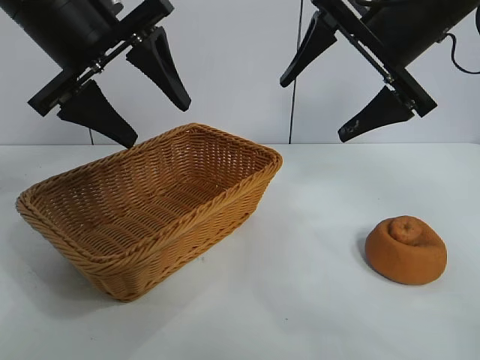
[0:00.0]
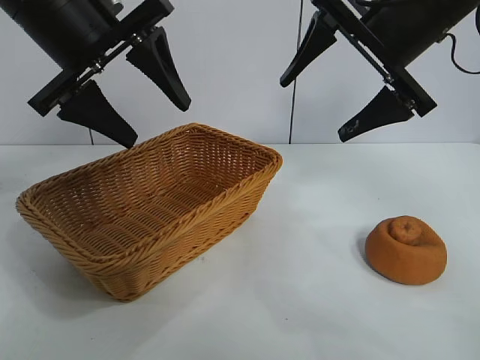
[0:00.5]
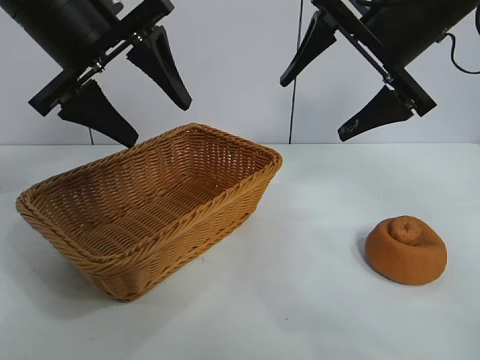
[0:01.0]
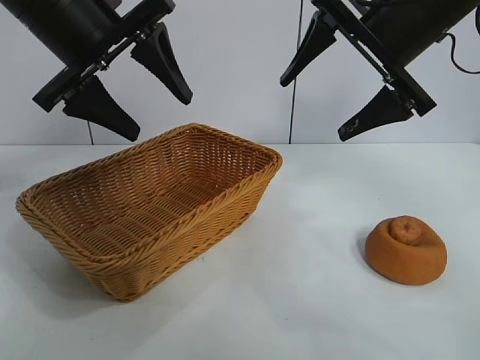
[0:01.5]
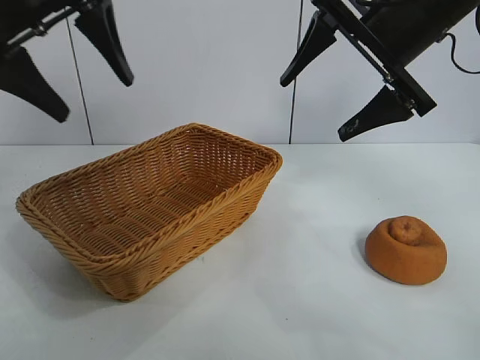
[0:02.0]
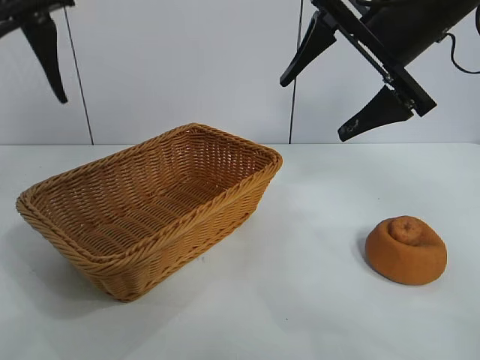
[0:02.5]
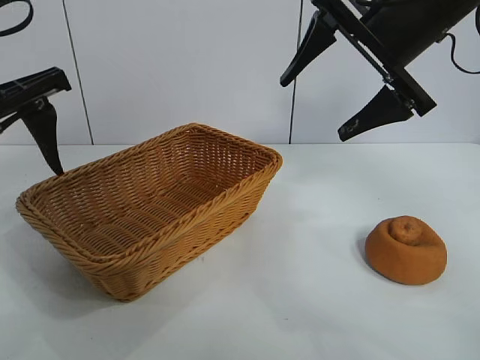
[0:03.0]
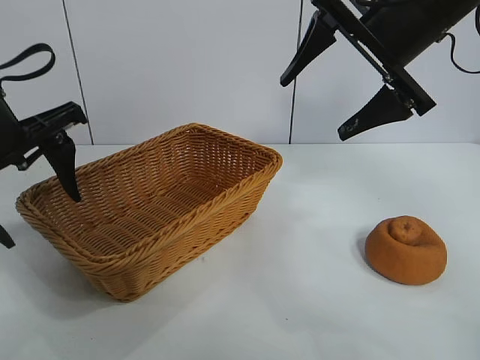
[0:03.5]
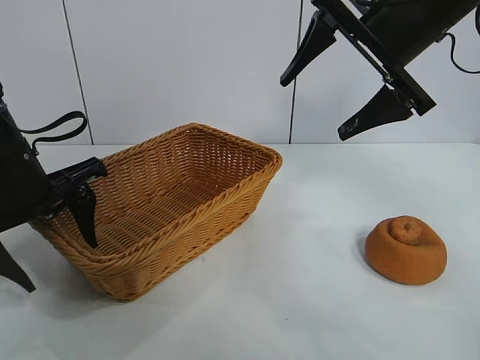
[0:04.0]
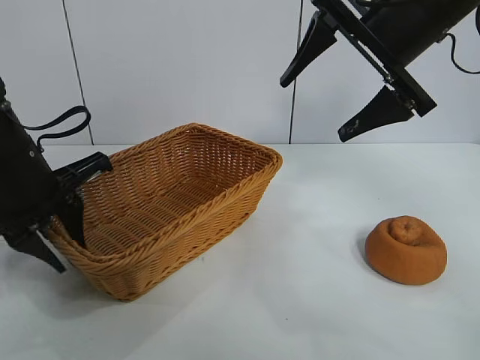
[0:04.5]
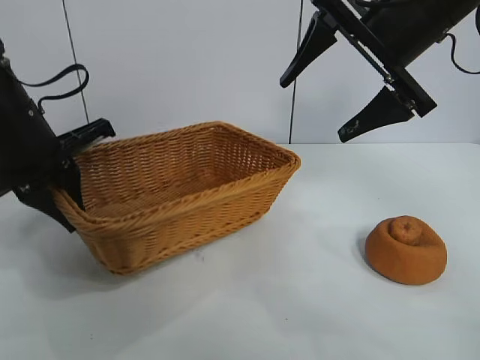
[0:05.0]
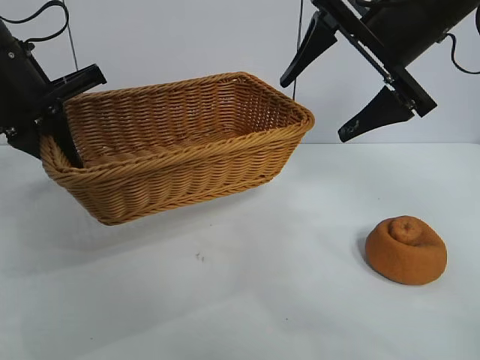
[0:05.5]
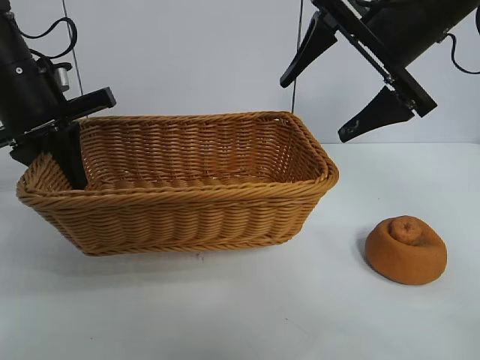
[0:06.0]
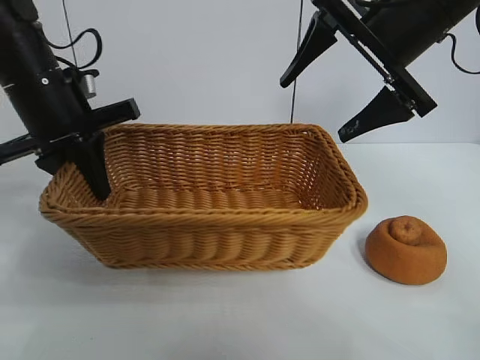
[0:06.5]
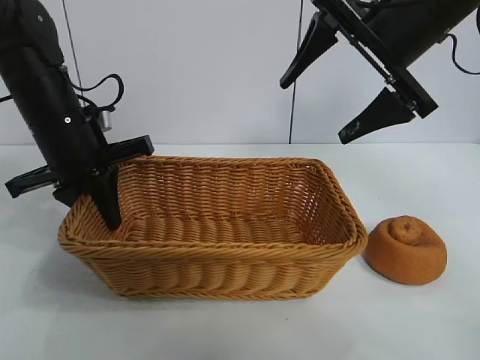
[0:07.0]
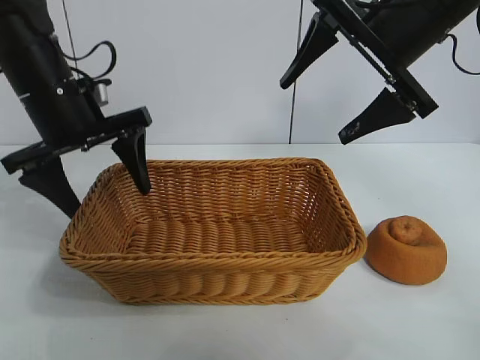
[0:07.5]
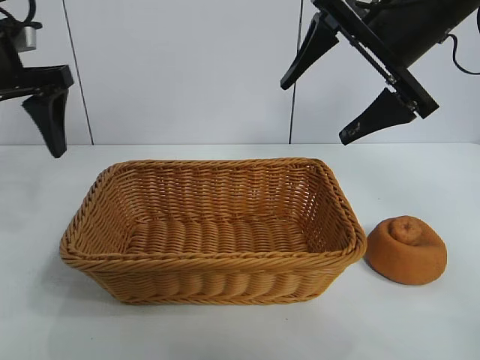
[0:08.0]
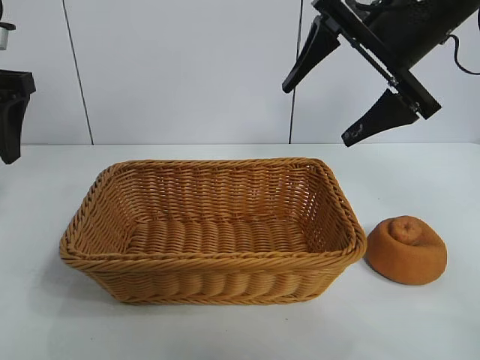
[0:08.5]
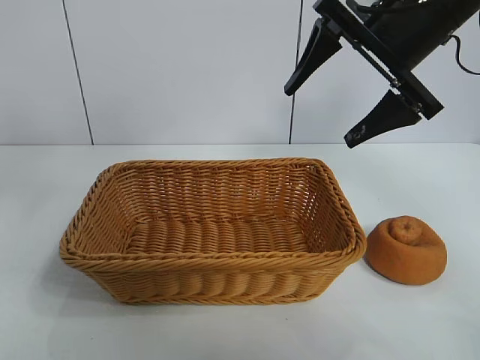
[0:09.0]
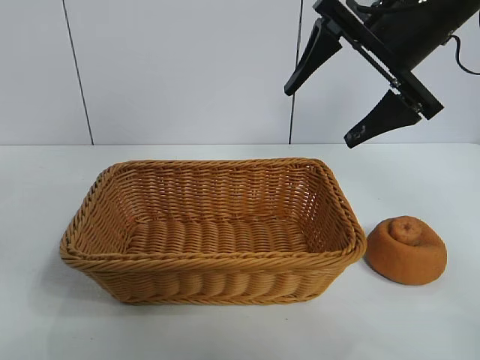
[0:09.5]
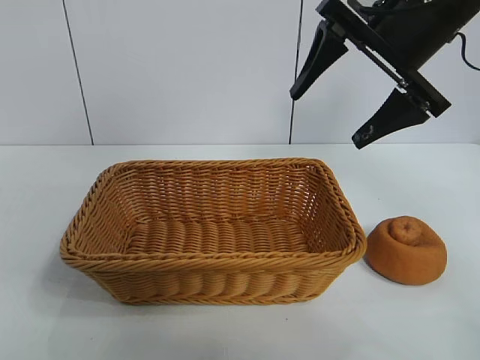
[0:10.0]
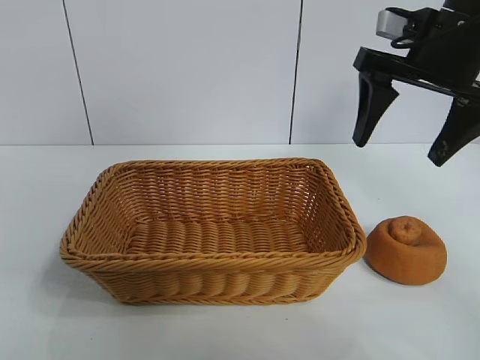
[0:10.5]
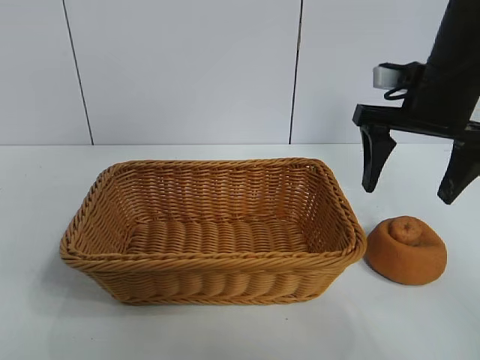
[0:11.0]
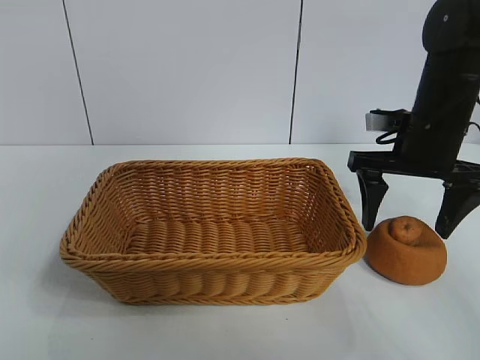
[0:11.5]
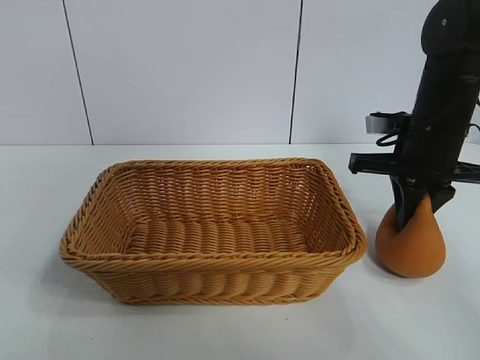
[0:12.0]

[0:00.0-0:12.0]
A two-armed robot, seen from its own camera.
Task of the whole recording: pick up the orange and put it into the basket.
Step, 0:02.0 to 0:04.5: Grasp the basket with left gripper.
Step, 0:05.0 to 0:07.0: Place the basket in the center of view with left gripper.

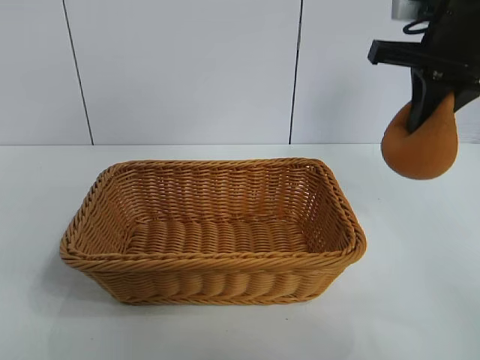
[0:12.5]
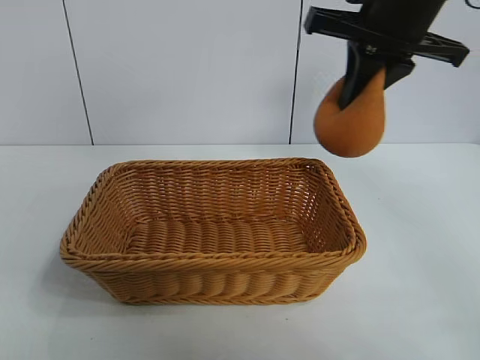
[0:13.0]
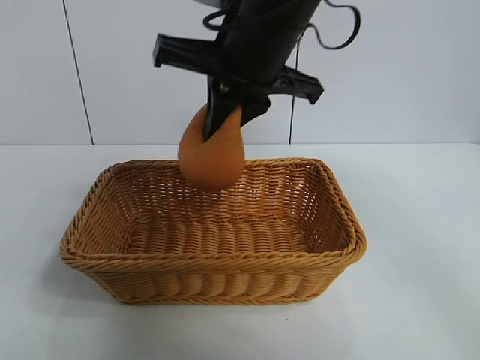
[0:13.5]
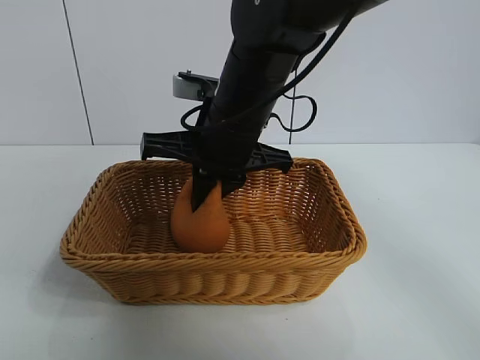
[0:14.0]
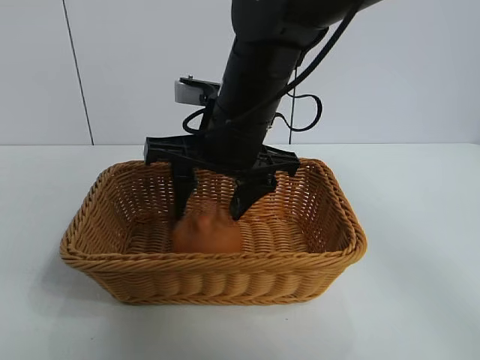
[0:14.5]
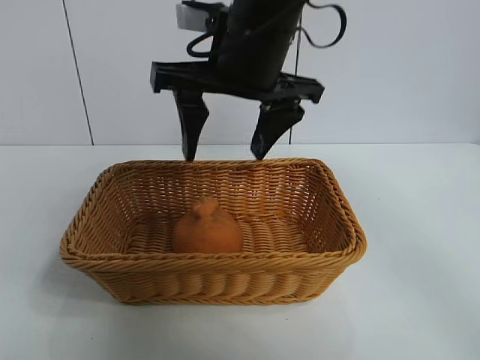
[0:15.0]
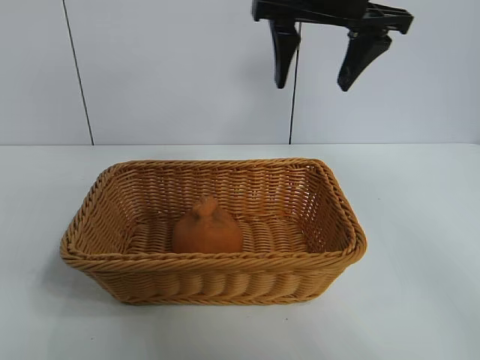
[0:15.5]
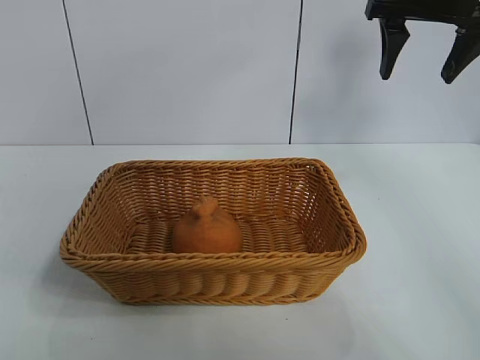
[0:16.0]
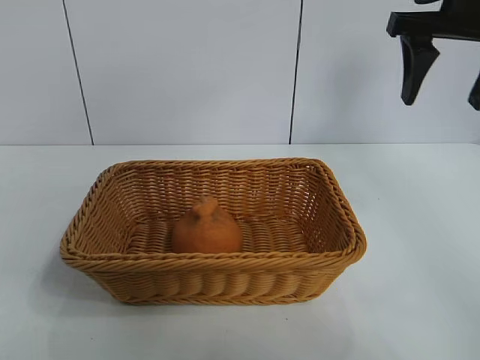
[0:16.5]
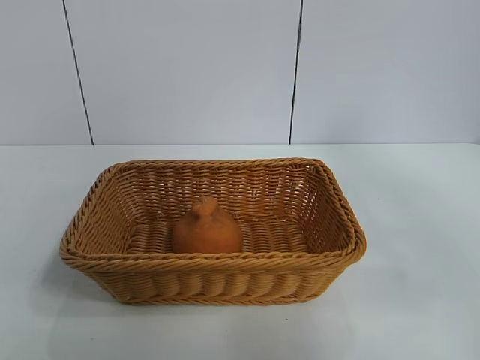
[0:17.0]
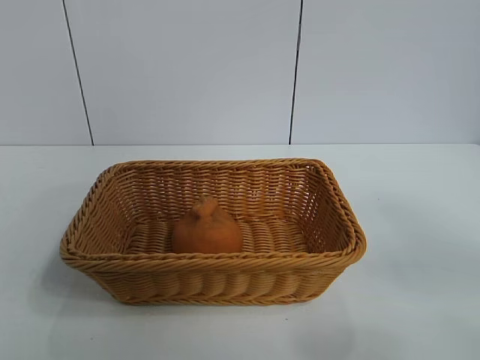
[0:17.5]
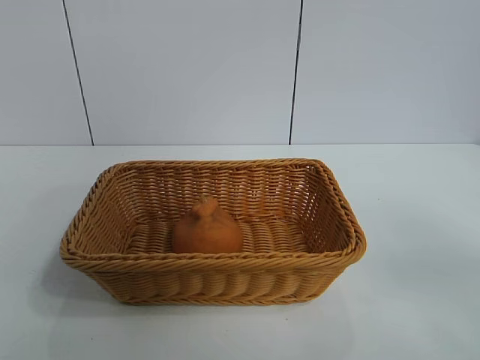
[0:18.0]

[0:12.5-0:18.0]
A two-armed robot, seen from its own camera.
Task of the whole recording: pick up the orange and put it into the basket.
Step, 0:12.5 to 0:14.5: Place the orange in the basket with right gripper.

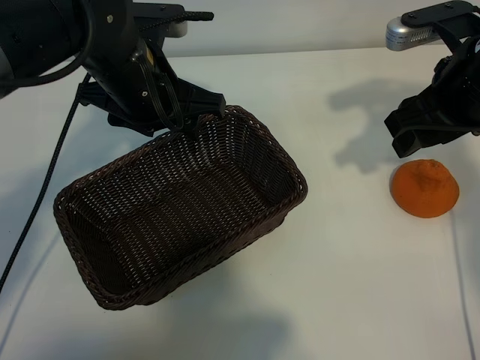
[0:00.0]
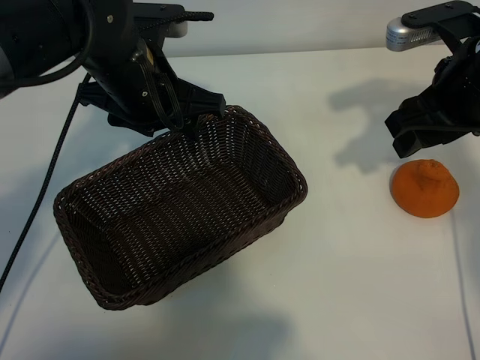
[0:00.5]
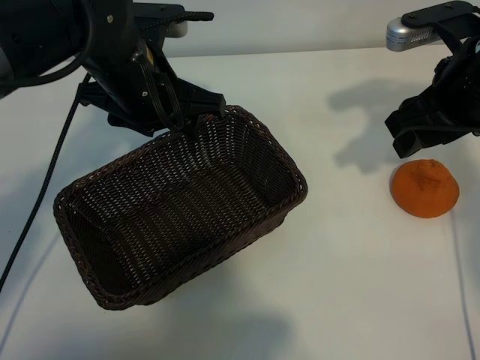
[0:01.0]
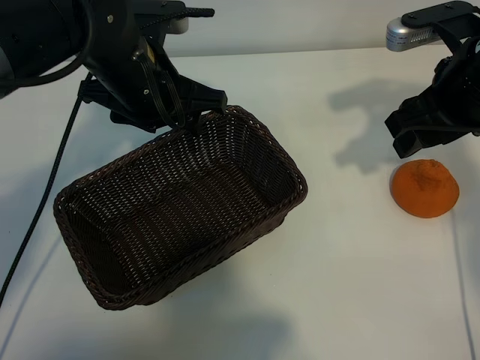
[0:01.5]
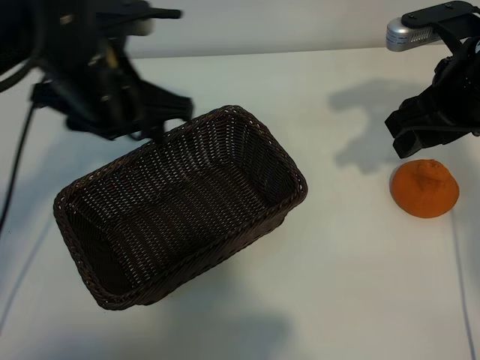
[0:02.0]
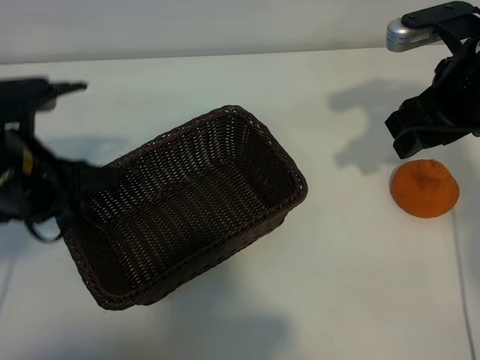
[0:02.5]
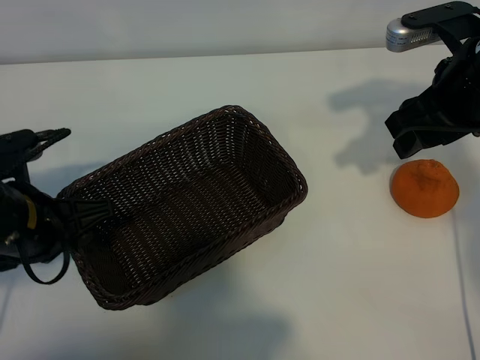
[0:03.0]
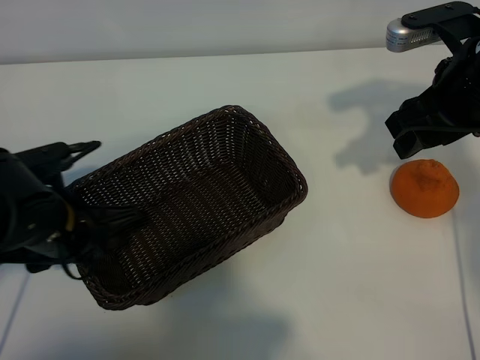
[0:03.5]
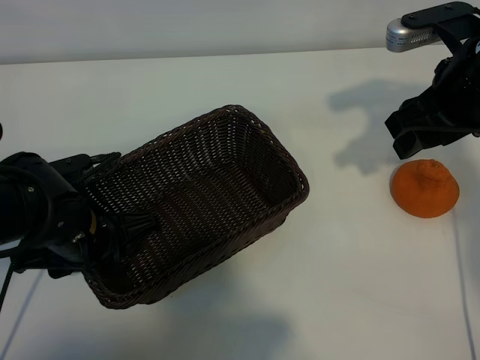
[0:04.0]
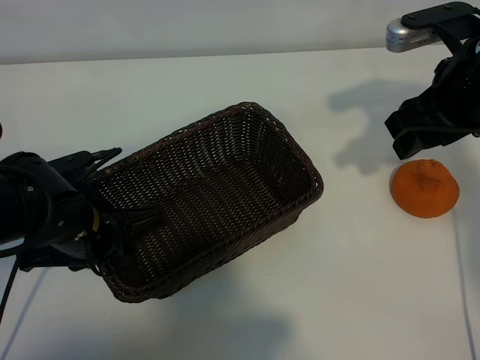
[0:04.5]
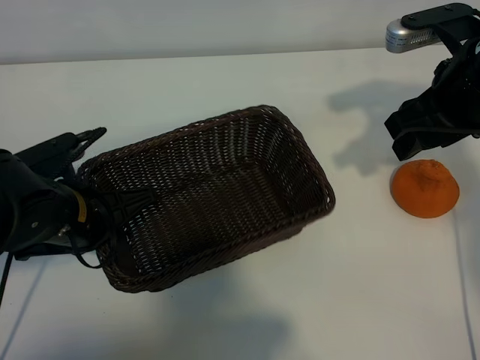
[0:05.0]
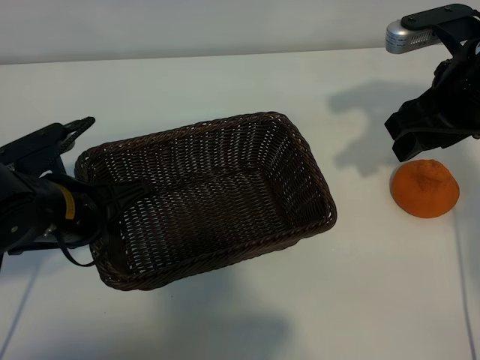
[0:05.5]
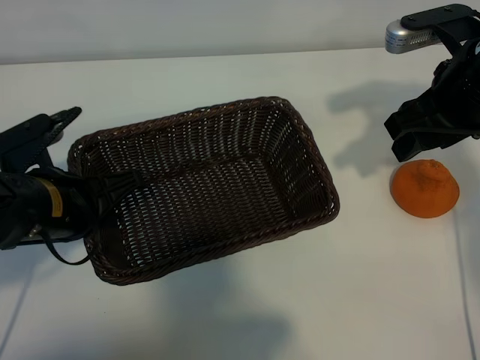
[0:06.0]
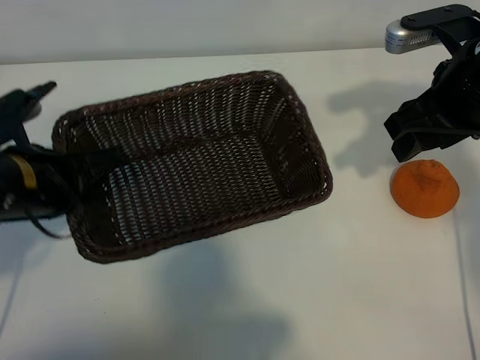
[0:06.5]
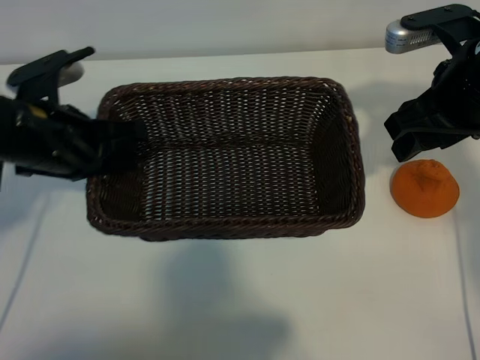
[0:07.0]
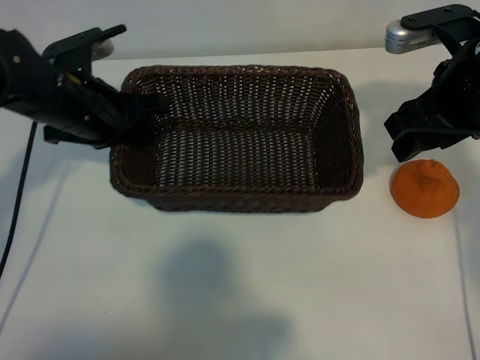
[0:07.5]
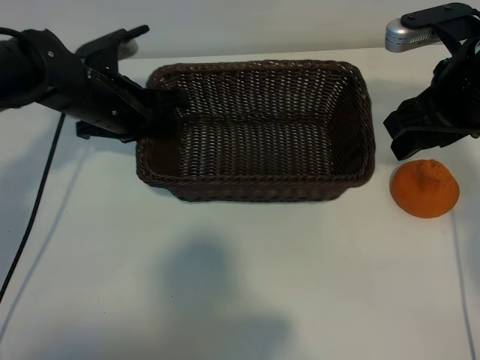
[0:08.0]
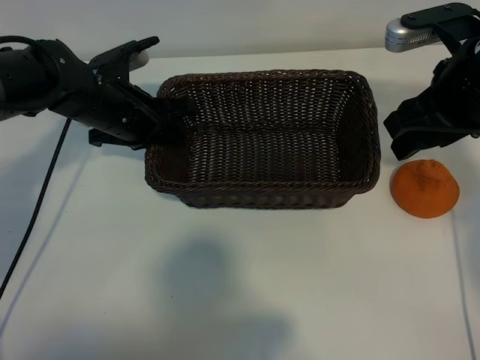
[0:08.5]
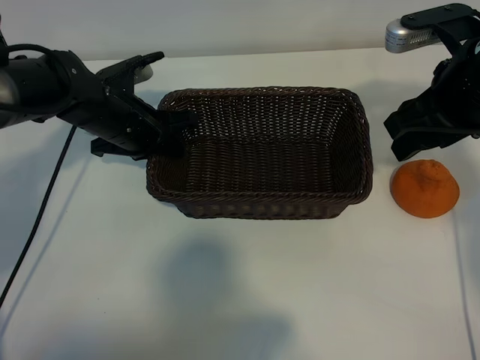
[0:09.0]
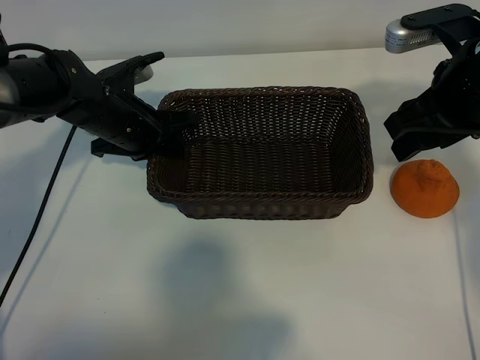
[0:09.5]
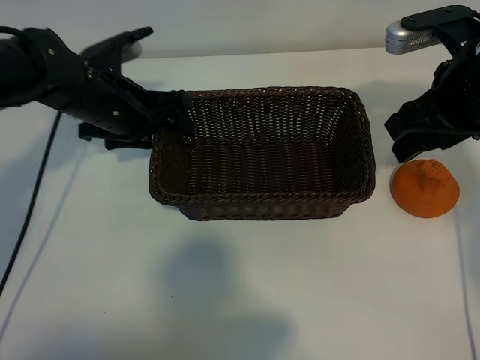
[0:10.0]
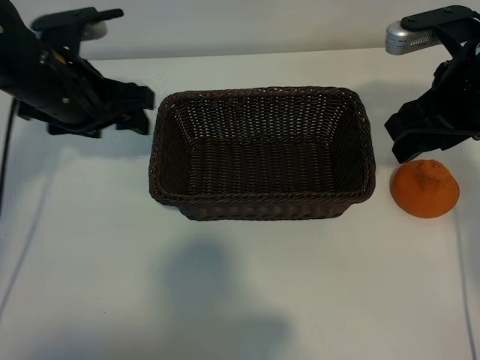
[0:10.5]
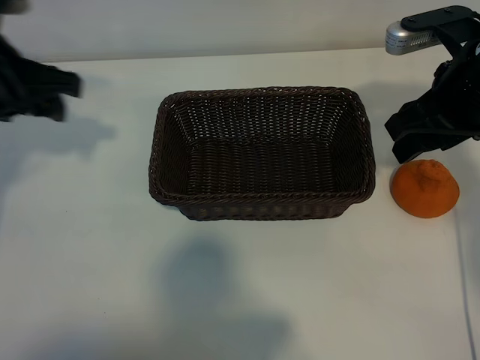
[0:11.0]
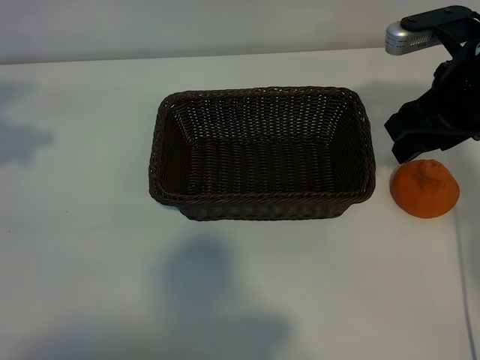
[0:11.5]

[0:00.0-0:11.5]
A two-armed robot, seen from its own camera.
Task of the whole recording: pick up the orange and put it into the basket.
Step, 0:01.5 to 0:04.0: Grasp the basket with left gripper.
Step, 0:04.5 to 0:09.5: Place the basket in the center of view with left gripper.
